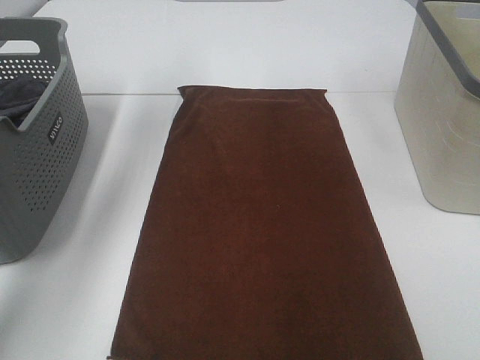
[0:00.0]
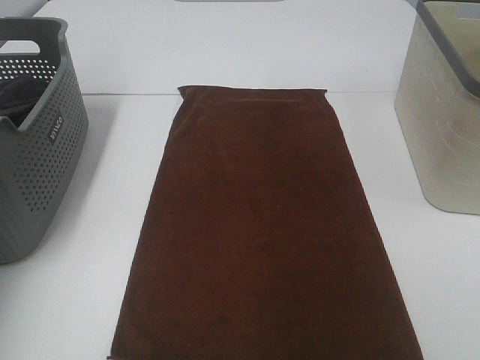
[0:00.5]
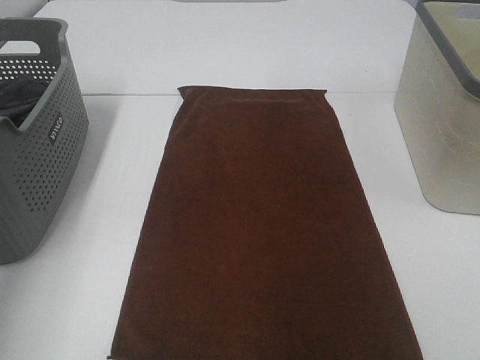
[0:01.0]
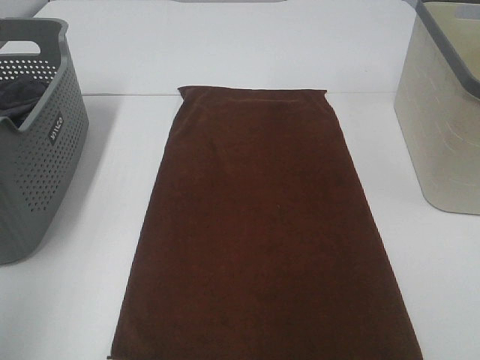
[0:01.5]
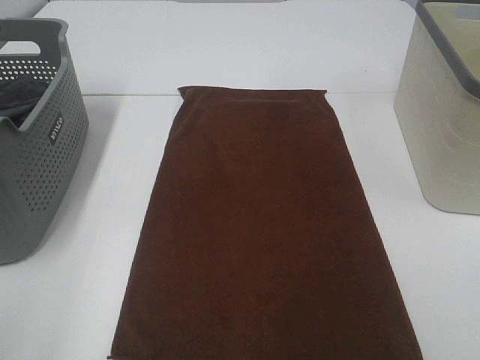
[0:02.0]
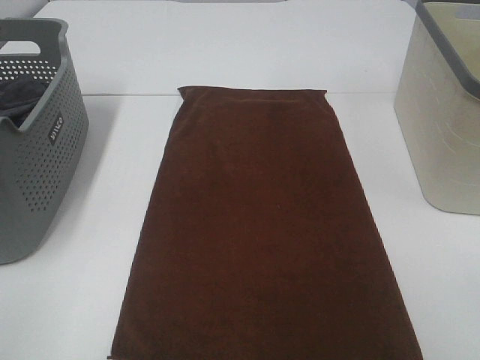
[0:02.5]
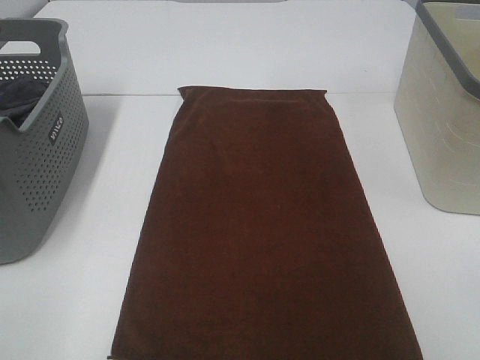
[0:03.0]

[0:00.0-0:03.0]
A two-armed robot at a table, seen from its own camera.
Task of the whole recording: Remove the towel and place it.
0:00.0 to 0:01.5: The left gripper moves backward, roughly 40 cm.
0:01.5 to 0:03.0: The left gripper goes approximately 15 cm downward and backward.
